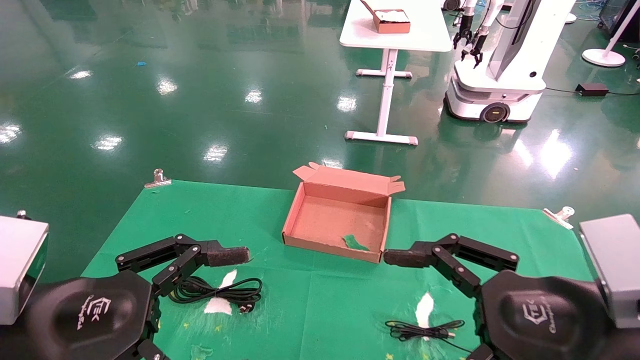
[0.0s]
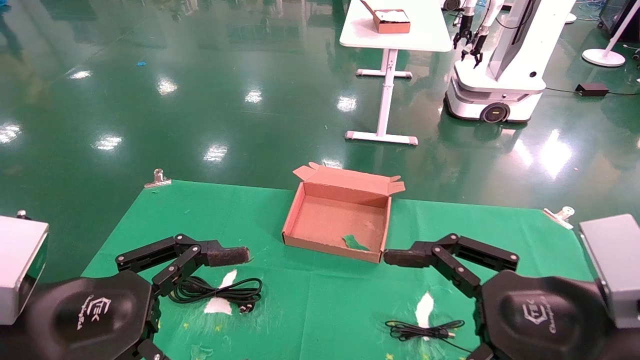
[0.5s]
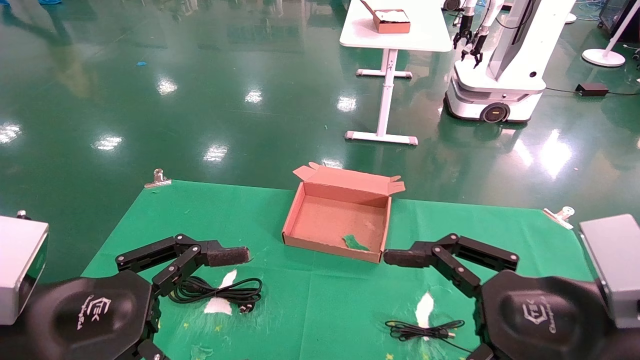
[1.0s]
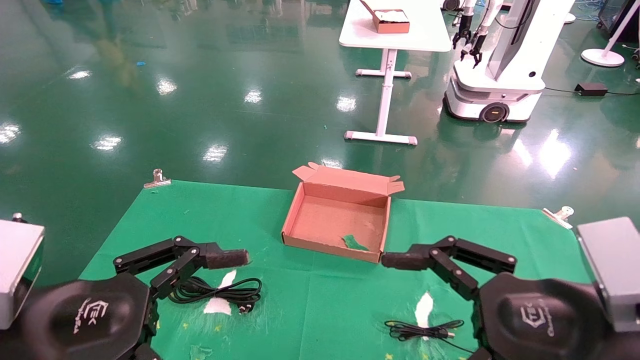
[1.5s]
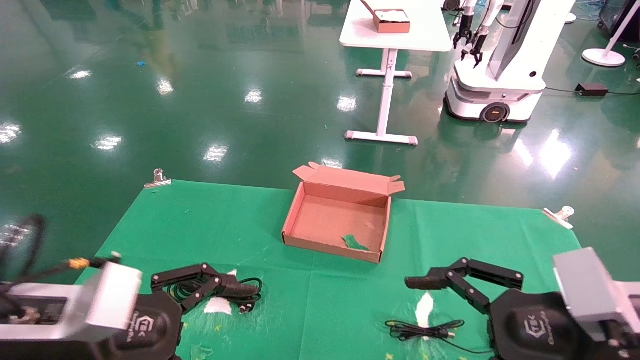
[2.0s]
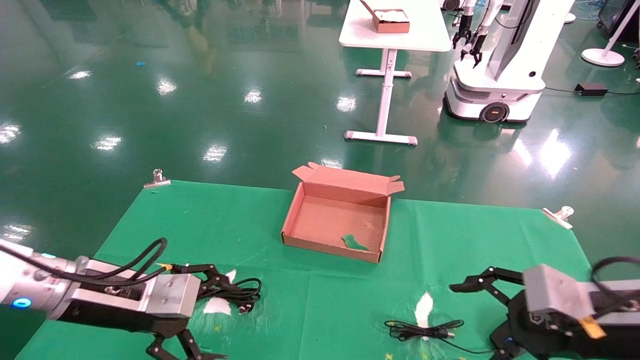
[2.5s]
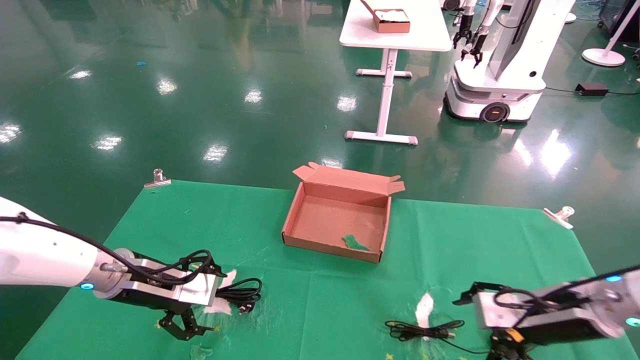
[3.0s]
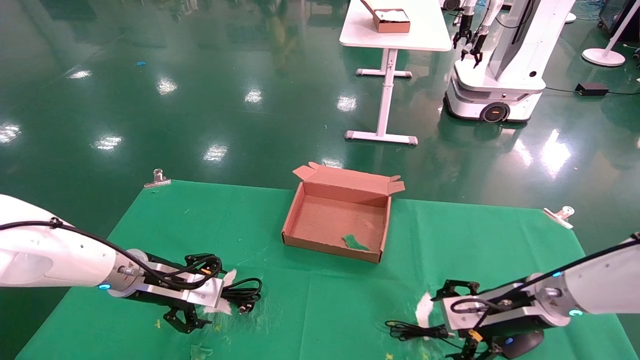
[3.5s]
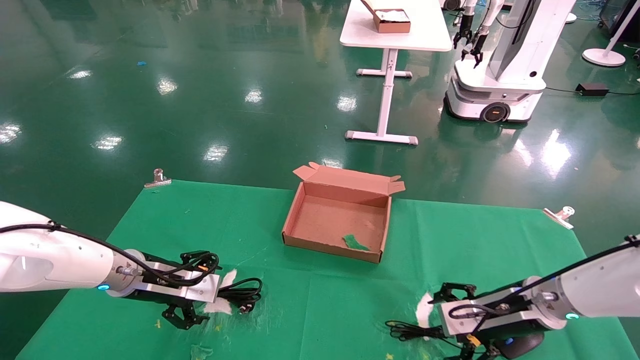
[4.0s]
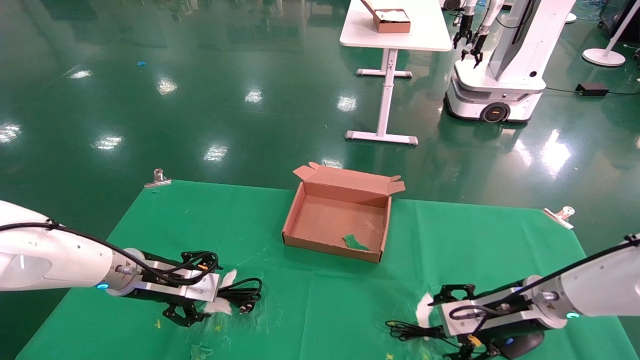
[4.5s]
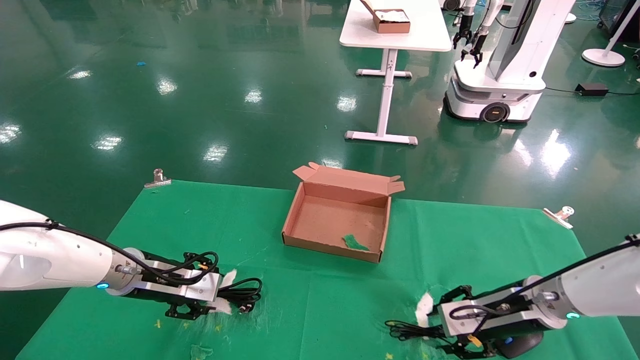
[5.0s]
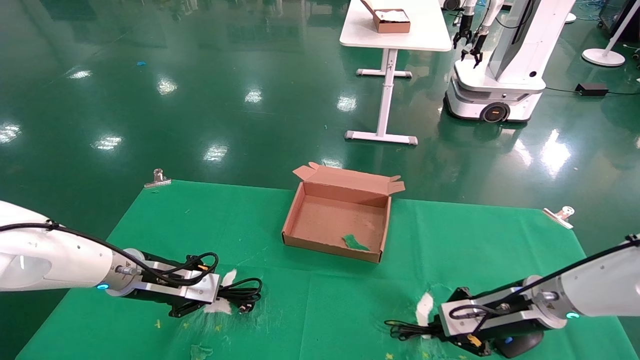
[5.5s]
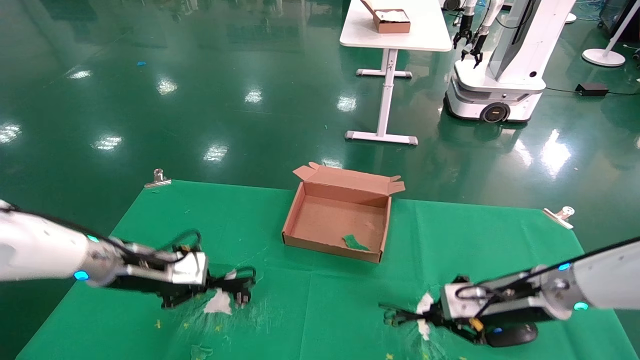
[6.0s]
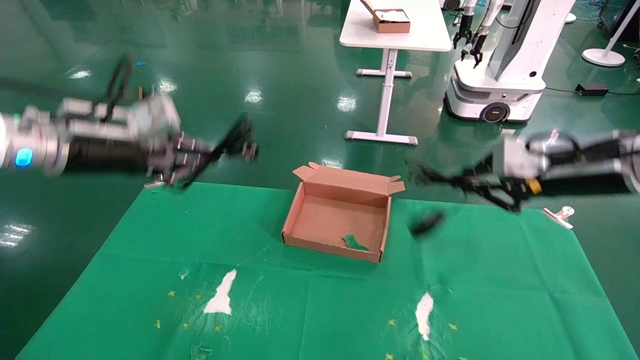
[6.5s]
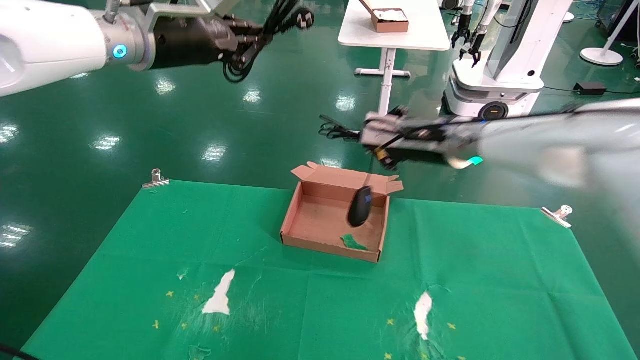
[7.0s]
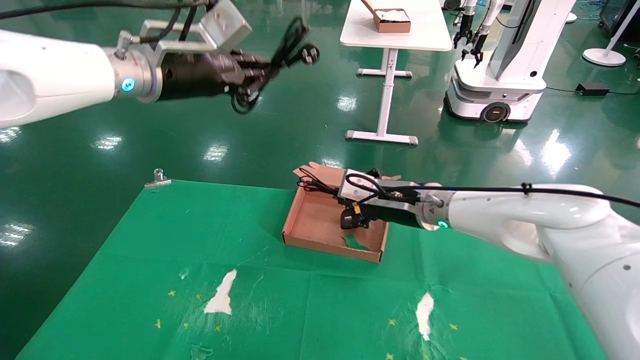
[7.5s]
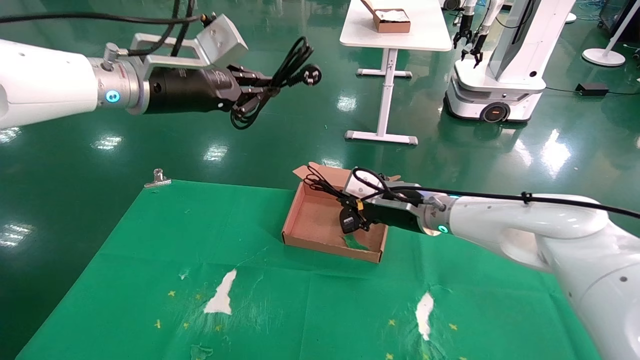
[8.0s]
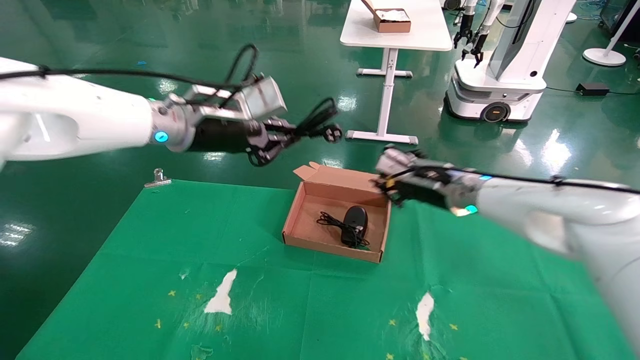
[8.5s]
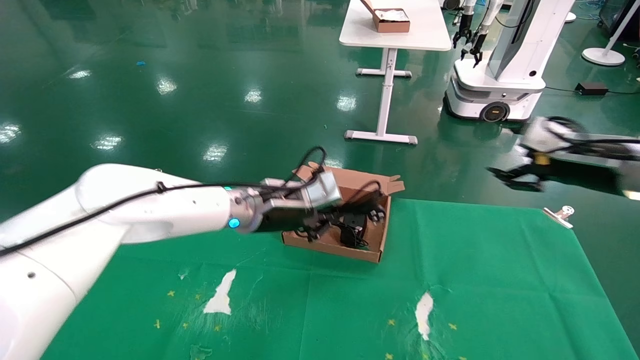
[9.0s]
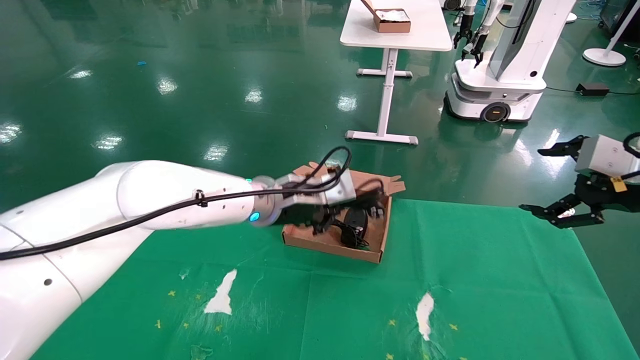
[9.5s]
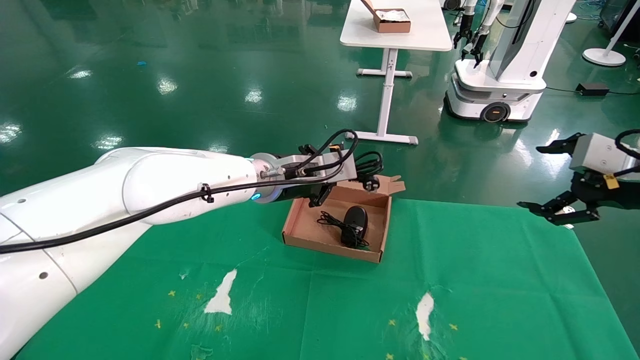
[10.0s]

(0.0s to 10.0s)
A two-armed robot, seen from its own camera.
Step, 1.5s - 6.0s: Grab and lift both the mouse and power cord from the accessory packaging area at the same time.
0.0s - 2.0s: The left gripper shifts approximately 5 cm forward.
2.0s - 4.0s: The right gripper goes approximately 20 cm forward and downward. Meanwhile the left gripper travels forward by roughly 20 cm.
4.0s - 6.0s: The right gripper moves roughly 5 cm, and closes. Meanwhile the left gripper shifts by approximately 5 cm, and closes up.
6.0s - 8.0s: The right gripper goes about 20 cm to the left, forward and upward. The left gripper heads upward and to the right, covering about 25 cm.
8.0s - 10.0s: The left gripper heads to the right and downward, covering approximately 20 cm. The right gripper moves to the right and backward, roughly 30 cm, and opens its fingers.

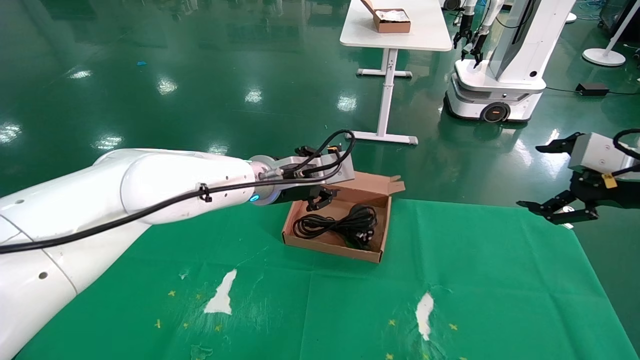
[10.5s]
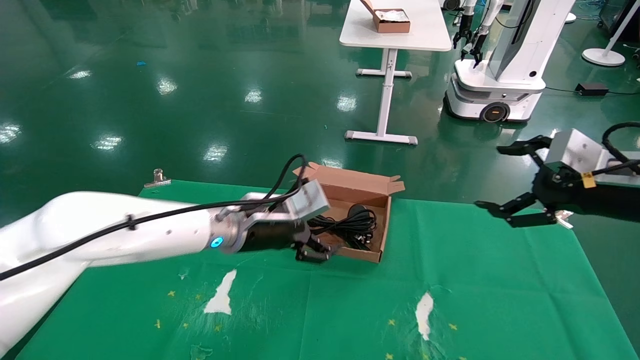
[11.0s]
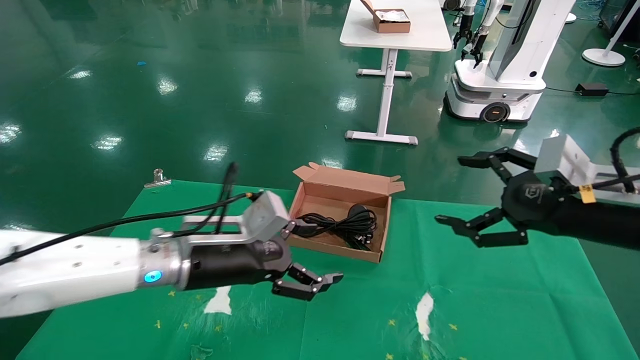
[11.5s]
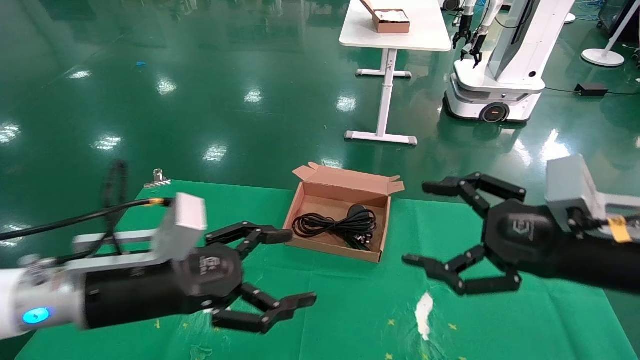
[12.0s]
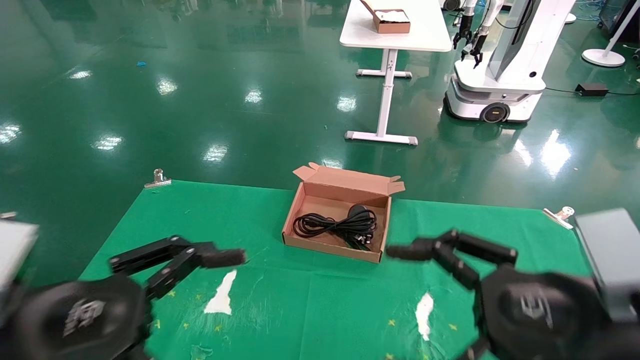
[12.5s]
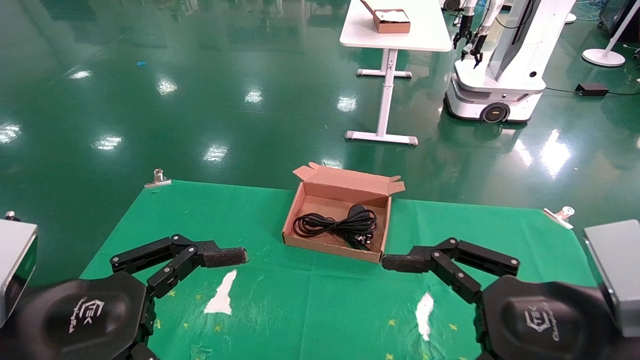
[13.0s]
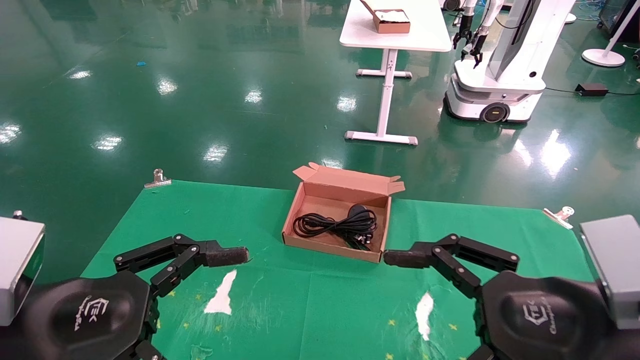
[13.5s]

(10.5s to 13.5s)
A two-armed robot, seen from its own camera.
10.5s - 12.0s: The left gripper moves backward and to the left, approximately 25 cm, and opens. The right gripper moves to the left and backward, about 15 cm.
12.0s - 13.5s: Both grippers travel together backward, approximately 10 cm.
